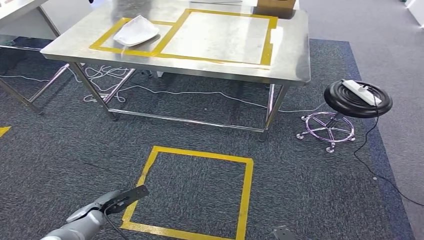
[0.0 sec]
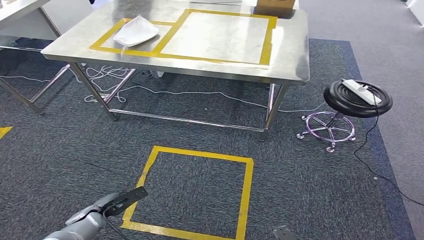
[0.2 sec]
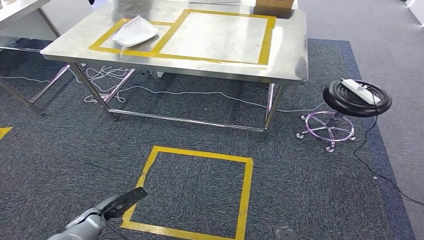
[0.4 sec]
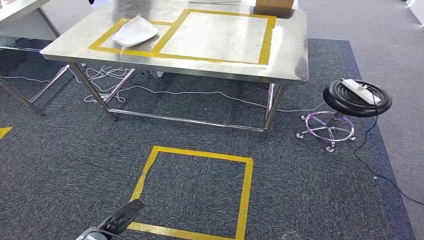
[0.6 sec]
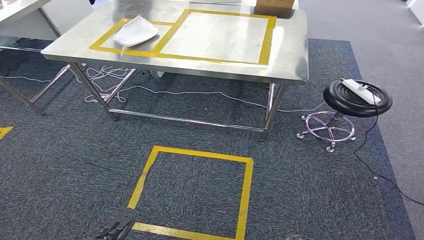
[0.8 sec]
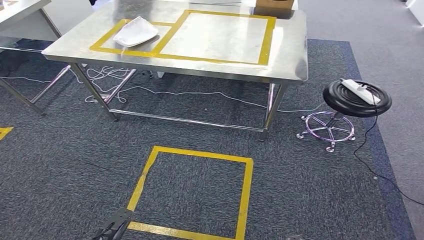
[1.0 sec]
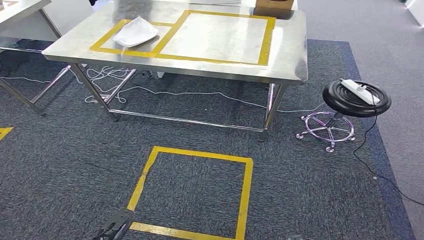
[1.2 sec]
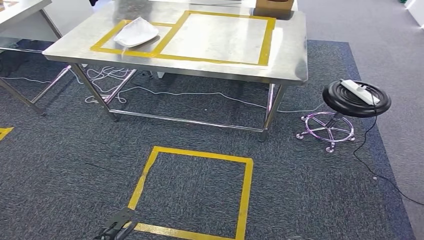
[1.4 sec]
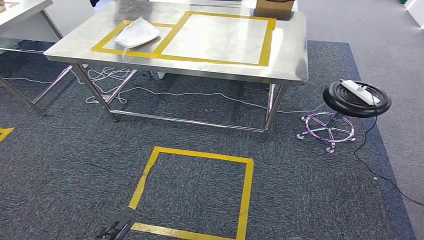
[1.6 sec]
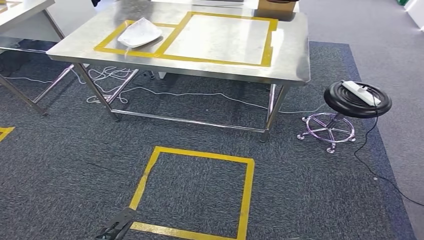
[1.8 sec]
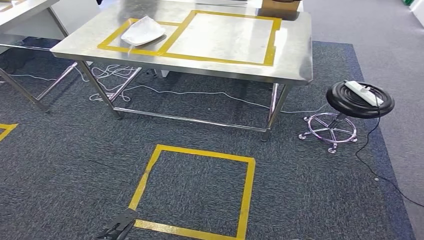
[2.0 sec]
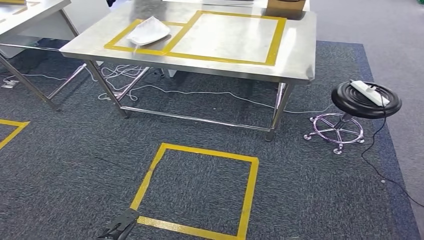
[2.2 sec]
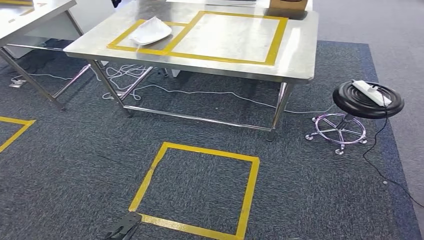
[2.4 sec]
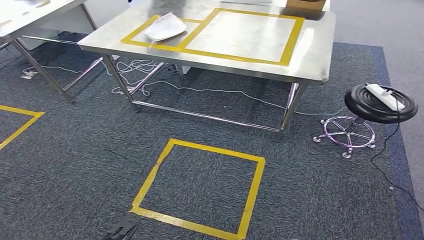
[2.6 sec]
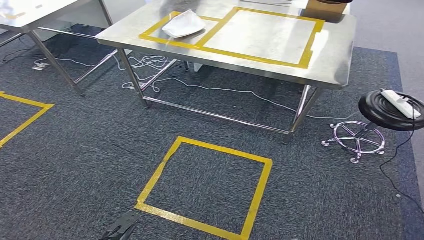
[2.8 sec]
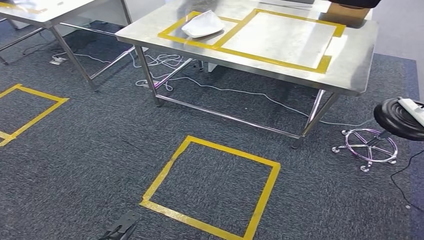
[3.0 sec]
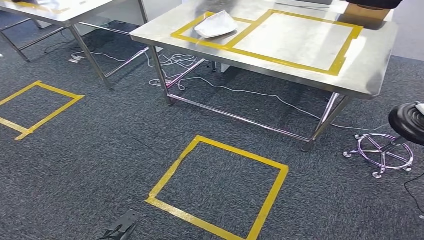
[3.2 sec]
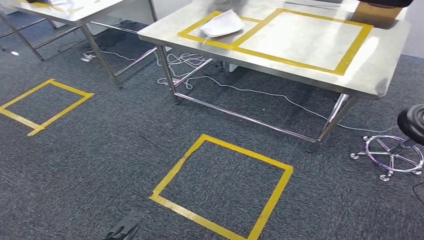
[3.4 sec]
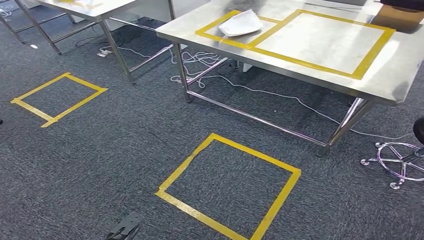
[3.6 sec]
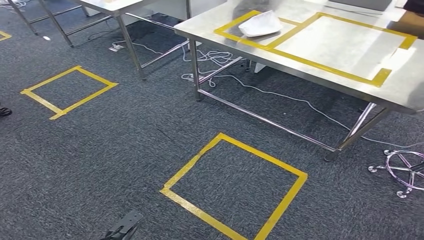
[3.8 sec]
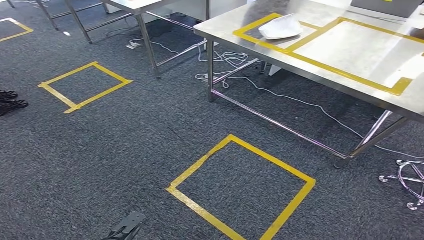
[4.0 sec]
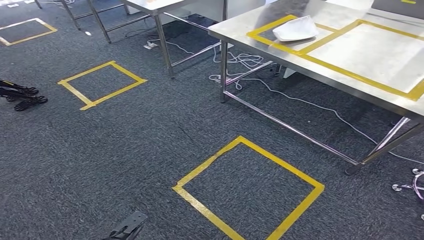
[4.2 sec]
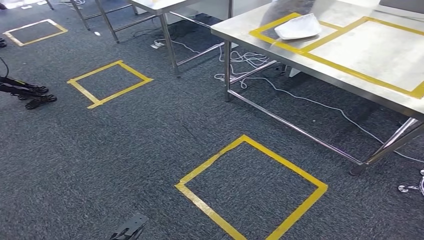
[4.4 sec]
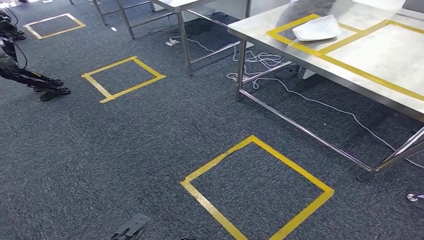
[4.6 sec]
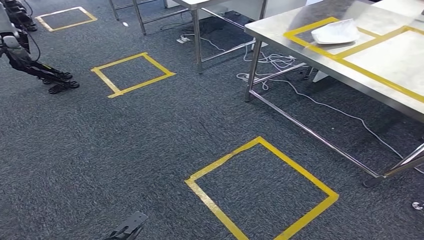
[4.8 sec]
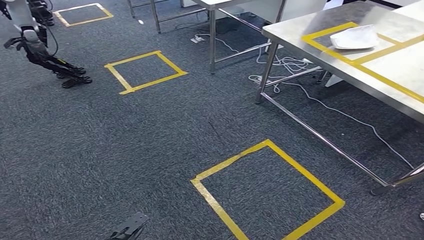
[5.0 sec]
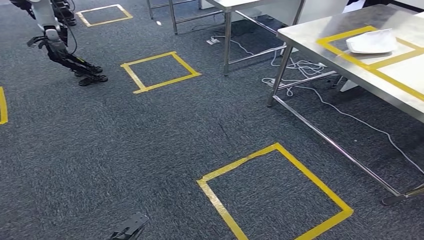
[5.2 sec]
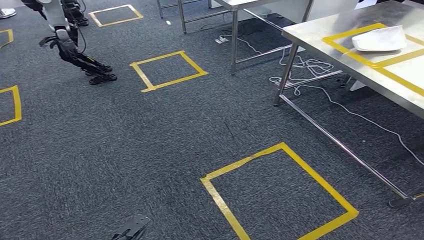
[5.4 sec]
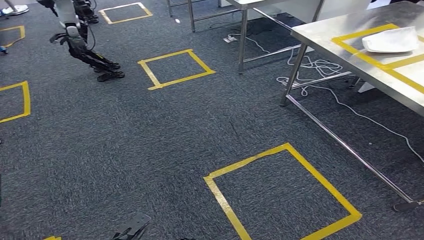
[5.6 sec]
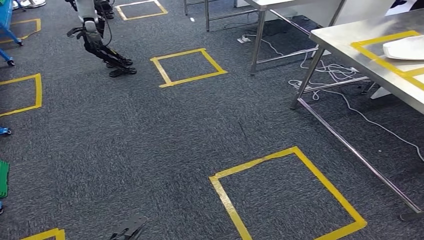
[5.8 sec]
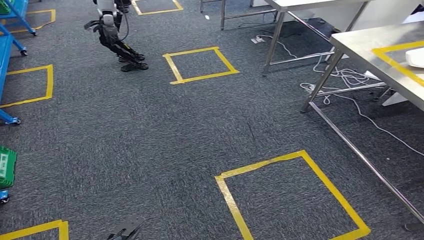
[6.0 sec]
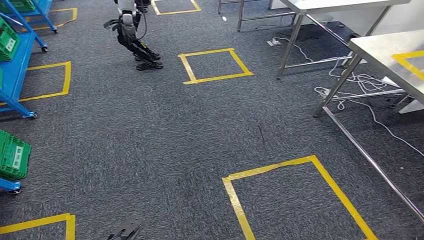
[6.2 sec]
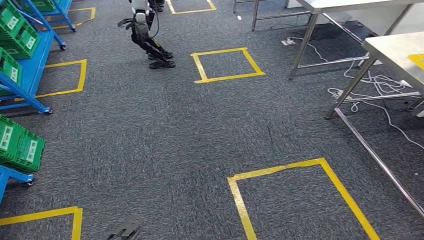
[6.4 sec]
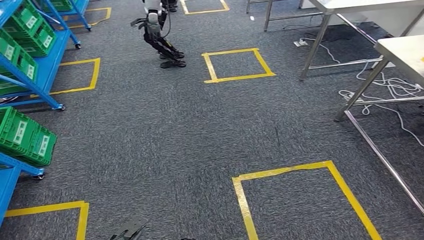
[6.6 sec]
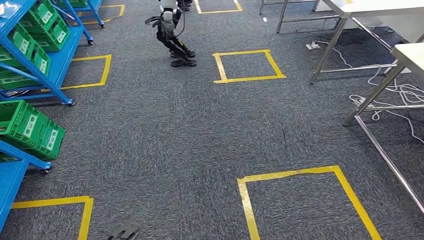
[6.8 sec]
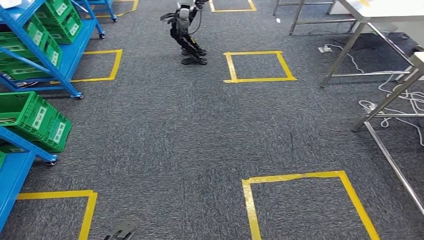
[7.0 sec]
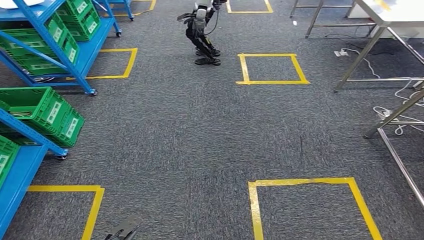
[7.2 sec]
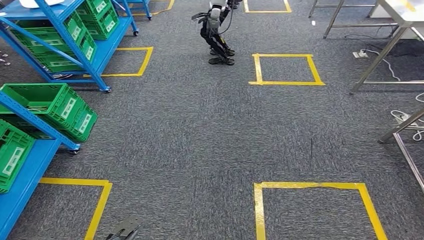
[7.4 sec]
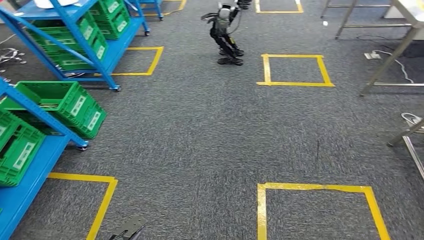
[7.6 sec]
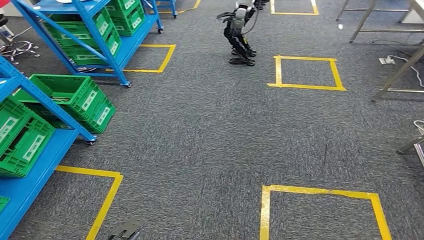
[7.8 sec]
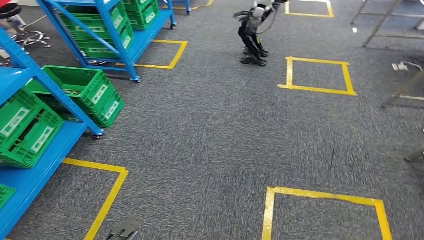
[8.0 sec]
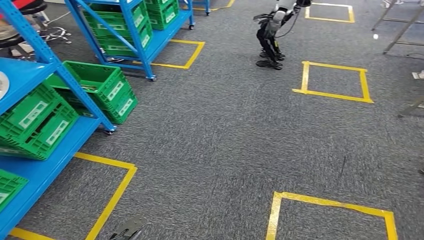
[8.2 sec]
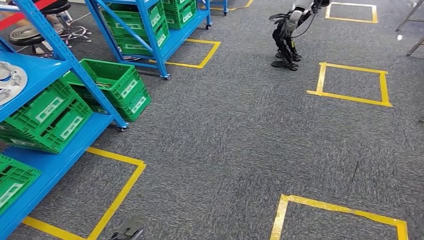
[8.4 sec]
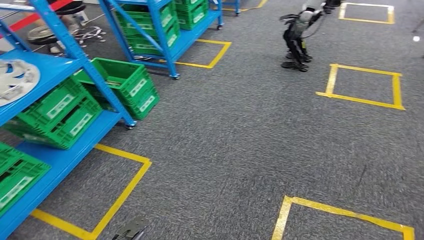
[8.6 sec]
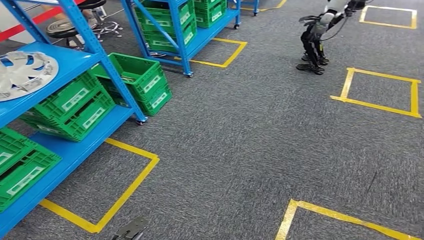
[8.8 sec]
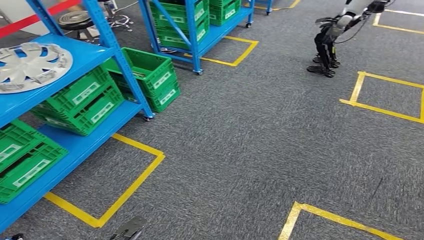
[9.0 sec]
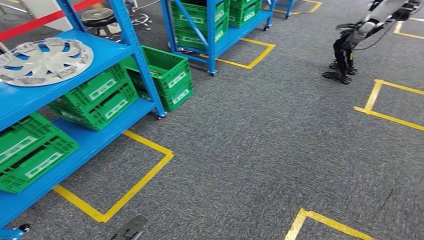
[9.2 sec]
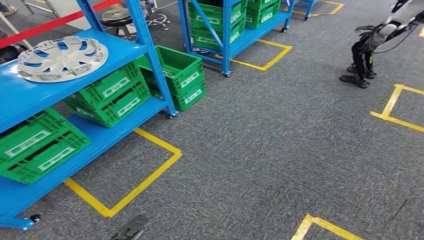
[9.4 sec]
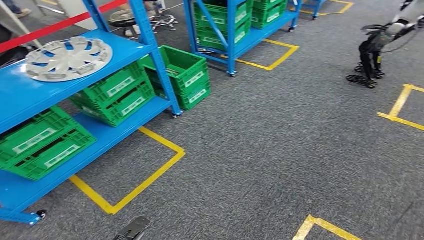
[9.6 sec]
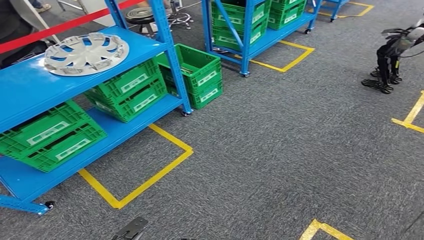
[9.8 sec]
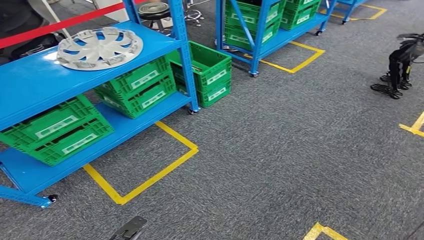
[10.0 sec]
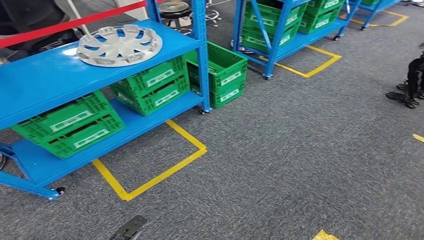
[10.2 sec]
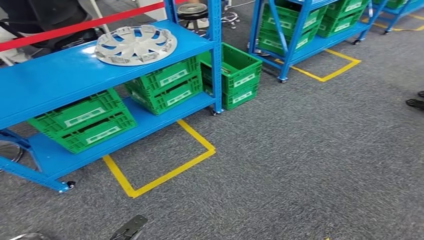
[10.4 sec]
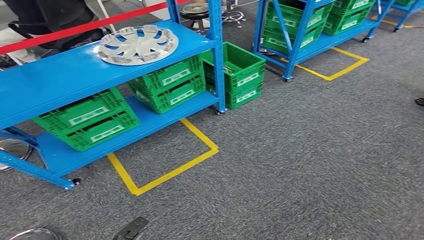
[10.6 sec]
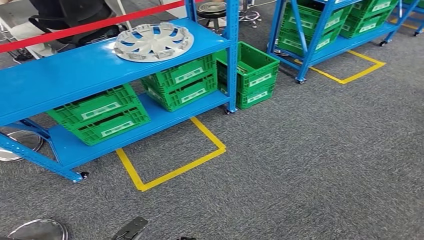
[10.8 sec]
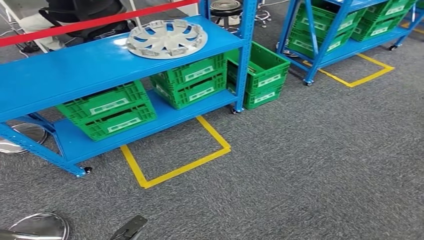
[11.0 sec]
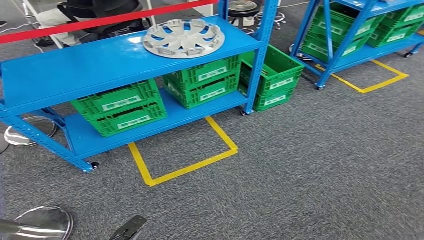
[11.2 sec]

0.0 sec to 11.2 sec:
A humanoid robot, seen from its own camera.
0.0 sec to 1.6 sec: The left hand travels backward and to the right by some 10 cm.

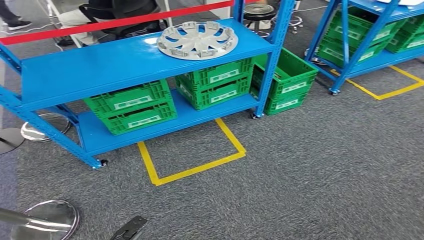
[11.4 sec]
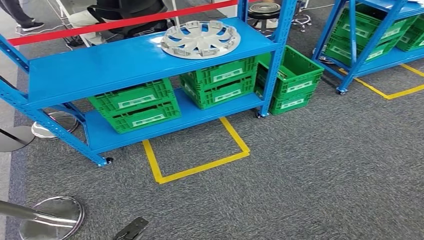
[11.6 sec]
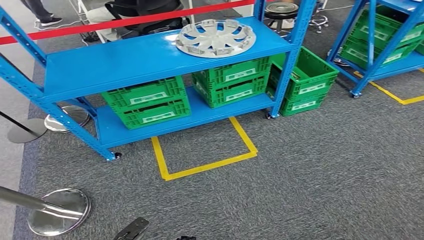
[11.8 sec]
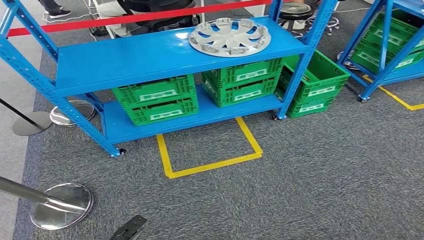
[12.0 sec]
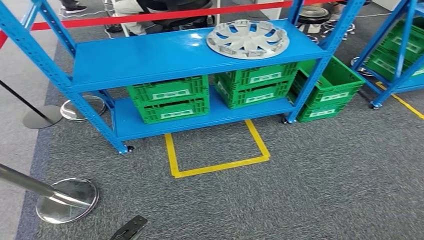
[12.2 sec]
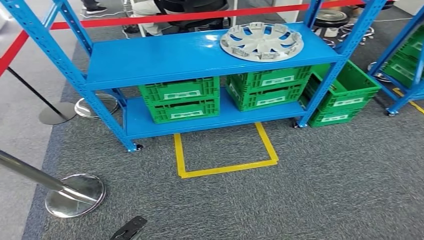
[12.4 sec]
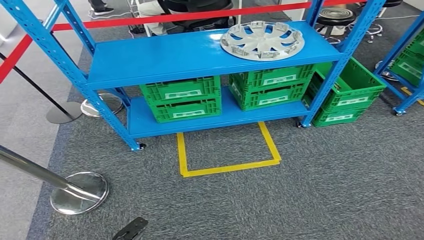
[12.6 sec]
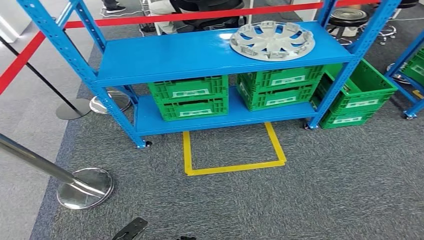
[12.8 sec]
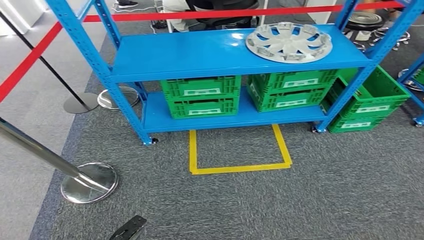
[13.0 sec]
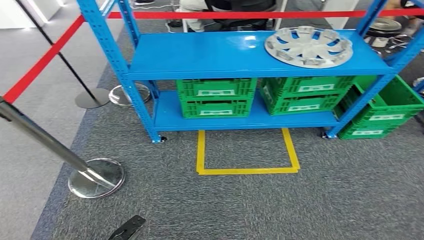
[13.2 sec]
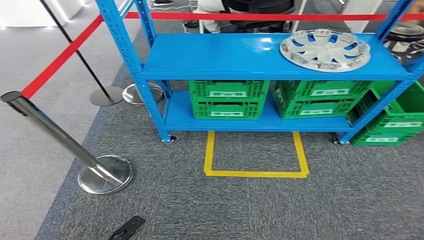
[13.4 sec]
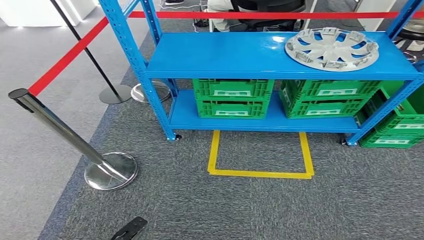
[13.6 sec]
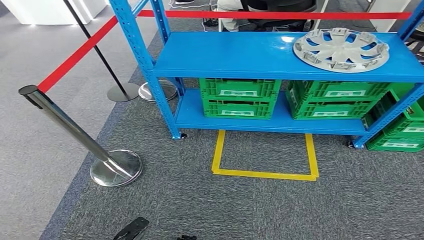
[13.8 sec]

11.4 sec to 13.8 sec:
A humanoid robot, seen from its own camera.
Step, 11.4 sec to 13.8 sec: Return to the initial position at the workbench.
